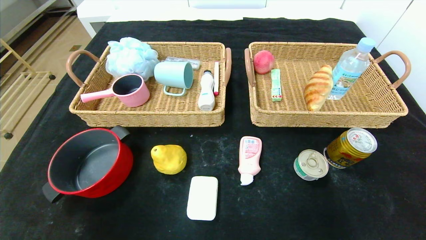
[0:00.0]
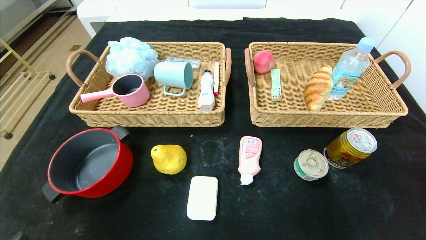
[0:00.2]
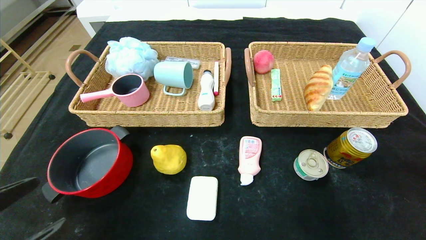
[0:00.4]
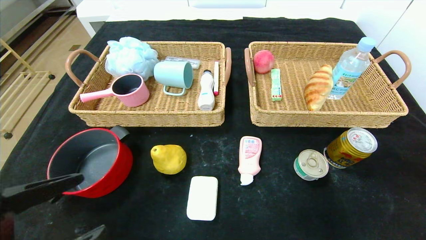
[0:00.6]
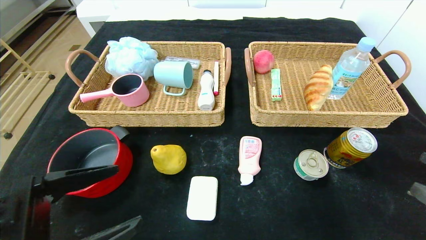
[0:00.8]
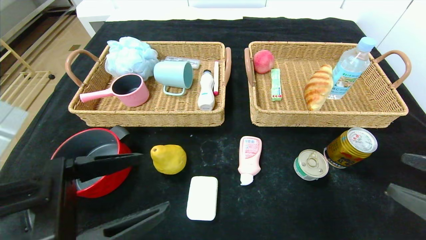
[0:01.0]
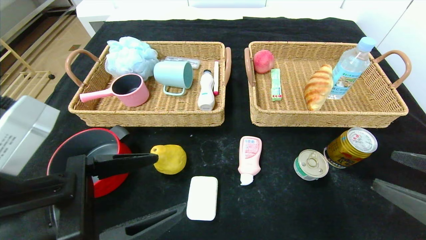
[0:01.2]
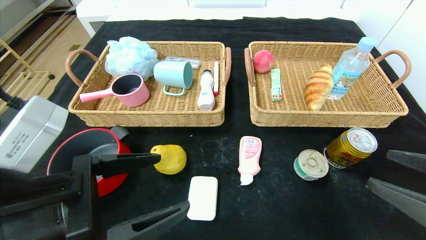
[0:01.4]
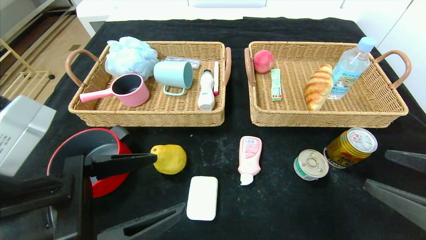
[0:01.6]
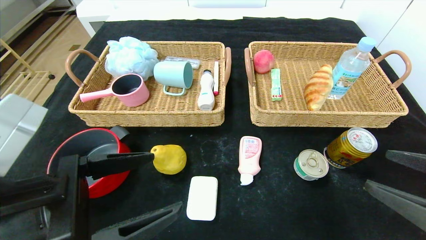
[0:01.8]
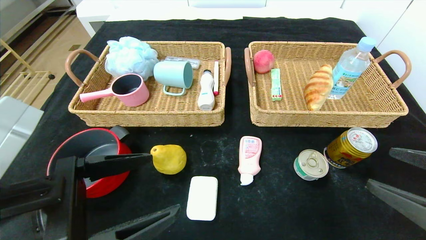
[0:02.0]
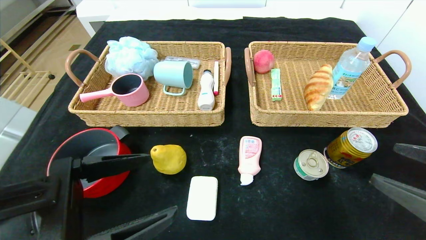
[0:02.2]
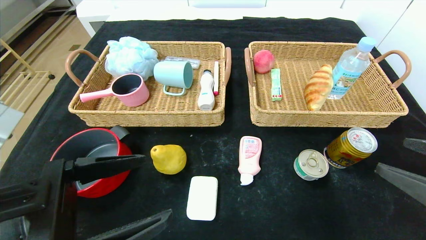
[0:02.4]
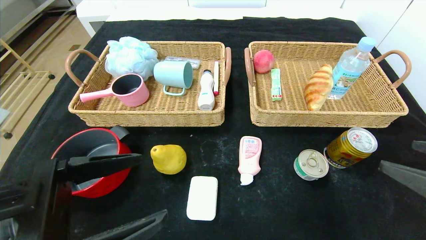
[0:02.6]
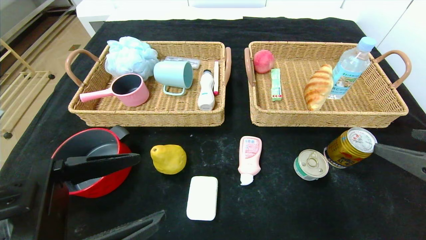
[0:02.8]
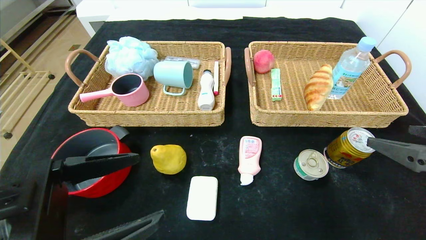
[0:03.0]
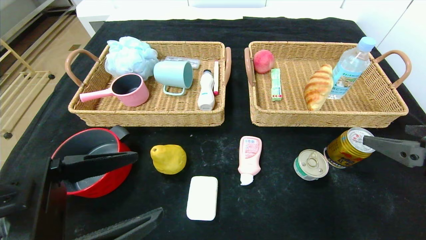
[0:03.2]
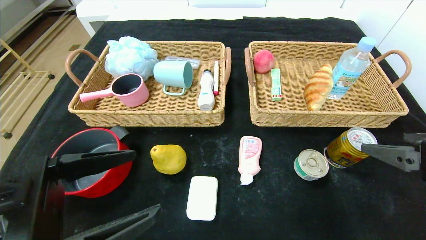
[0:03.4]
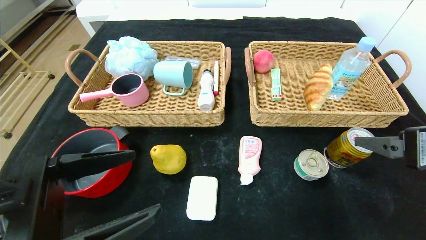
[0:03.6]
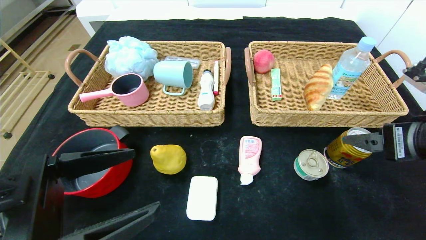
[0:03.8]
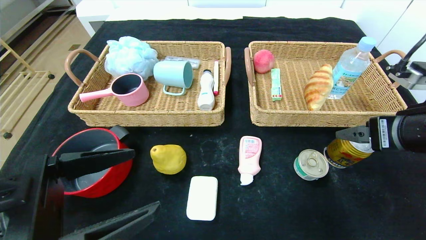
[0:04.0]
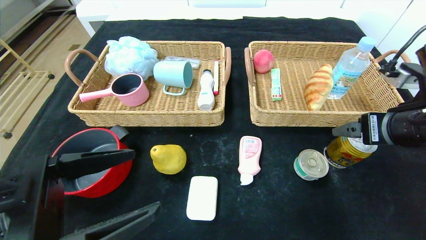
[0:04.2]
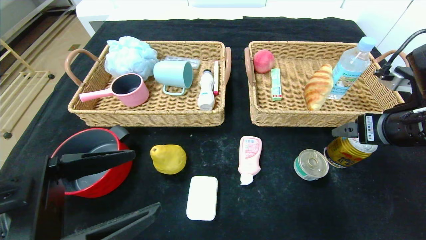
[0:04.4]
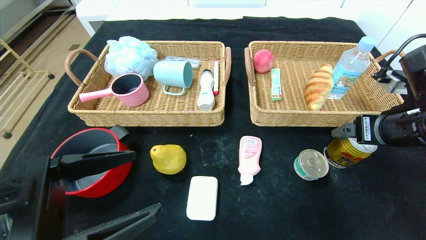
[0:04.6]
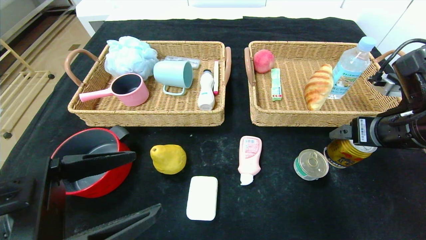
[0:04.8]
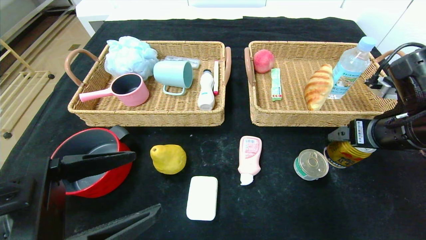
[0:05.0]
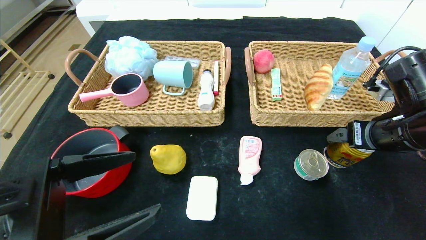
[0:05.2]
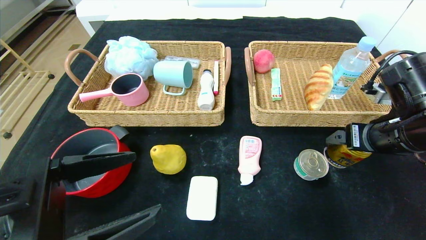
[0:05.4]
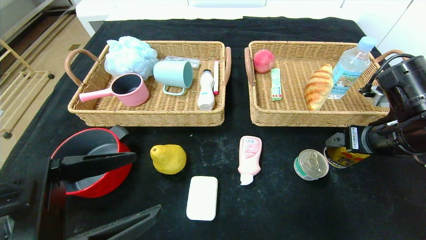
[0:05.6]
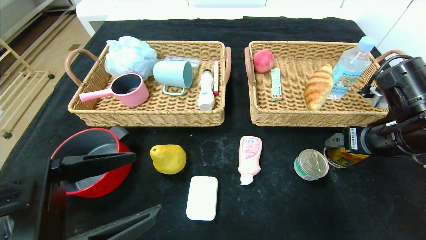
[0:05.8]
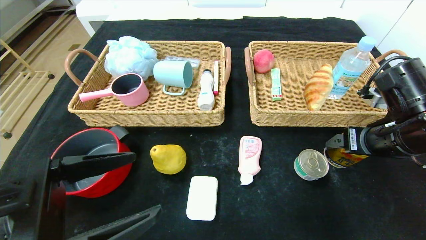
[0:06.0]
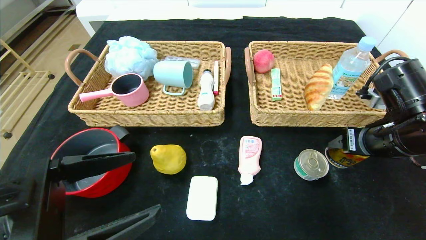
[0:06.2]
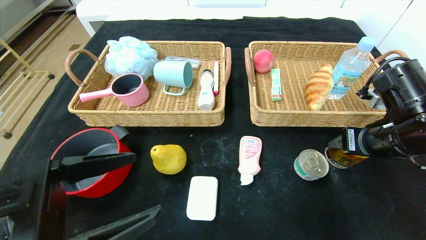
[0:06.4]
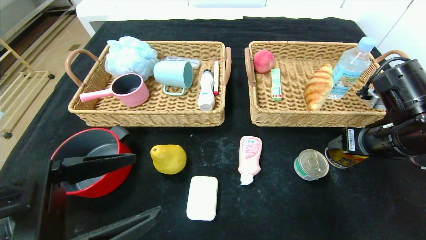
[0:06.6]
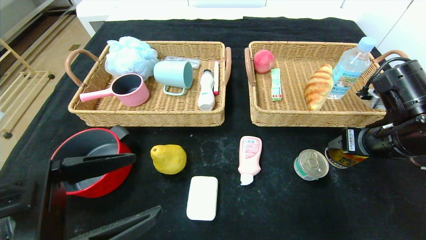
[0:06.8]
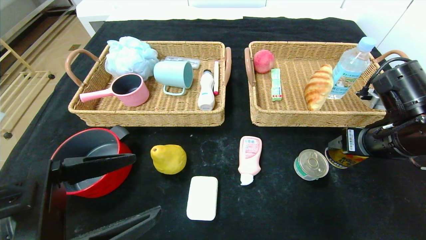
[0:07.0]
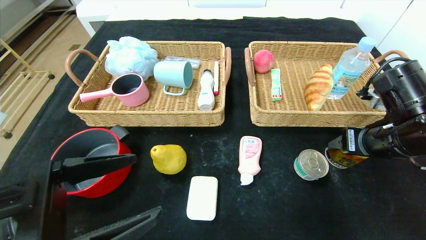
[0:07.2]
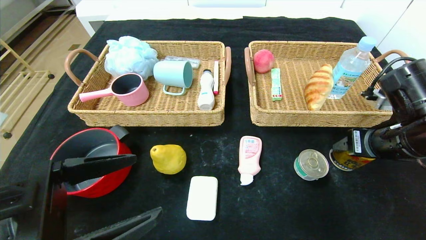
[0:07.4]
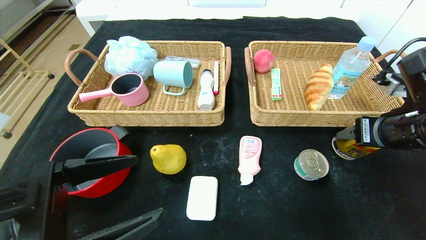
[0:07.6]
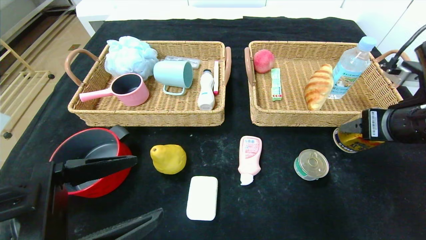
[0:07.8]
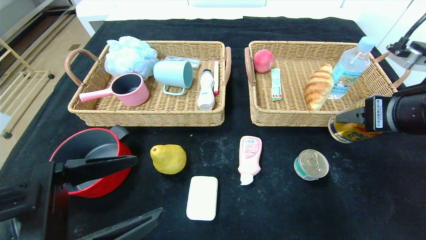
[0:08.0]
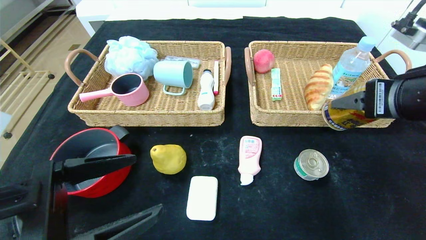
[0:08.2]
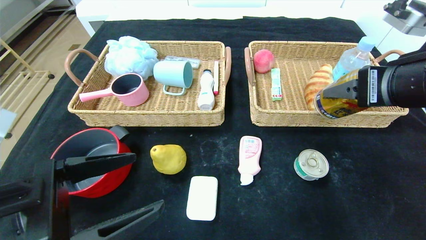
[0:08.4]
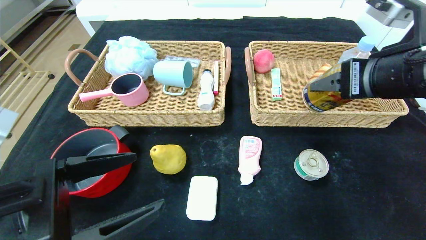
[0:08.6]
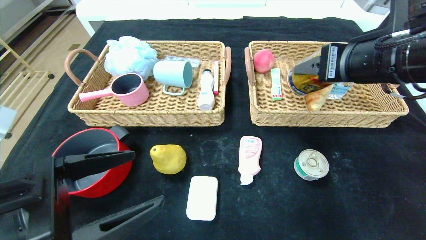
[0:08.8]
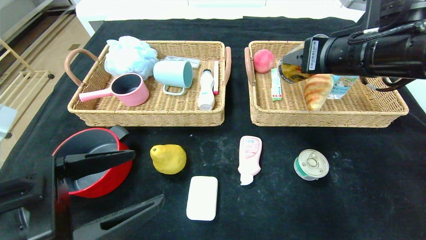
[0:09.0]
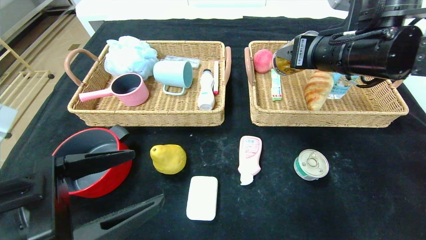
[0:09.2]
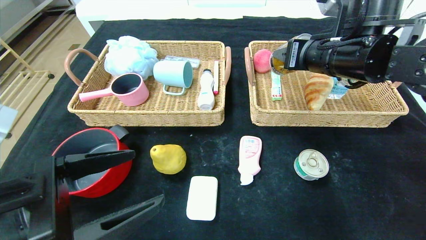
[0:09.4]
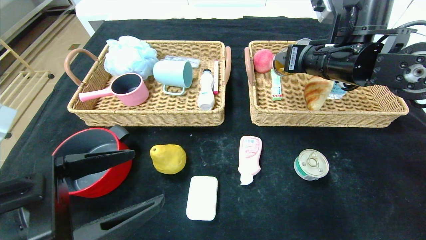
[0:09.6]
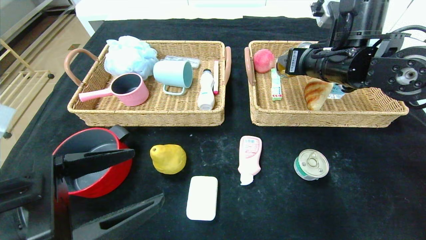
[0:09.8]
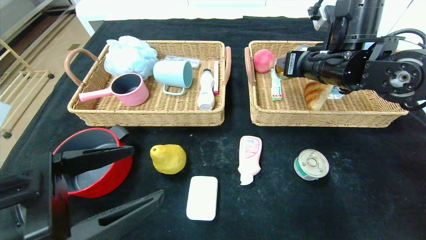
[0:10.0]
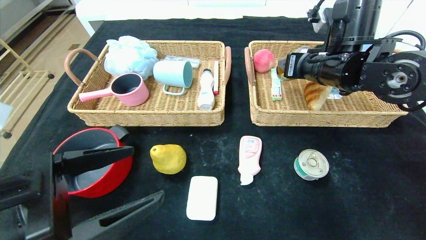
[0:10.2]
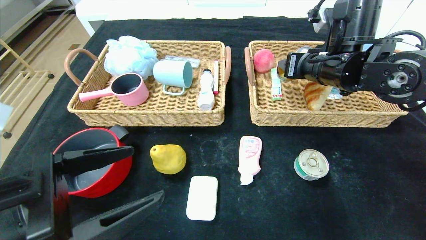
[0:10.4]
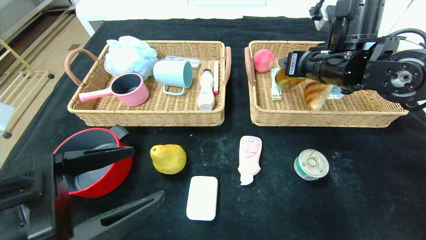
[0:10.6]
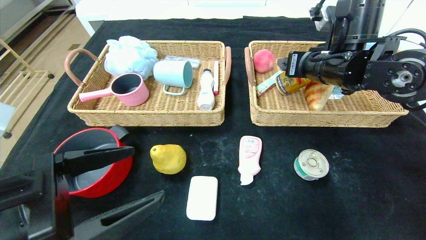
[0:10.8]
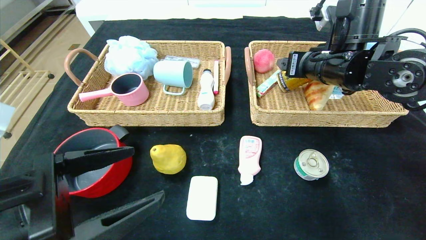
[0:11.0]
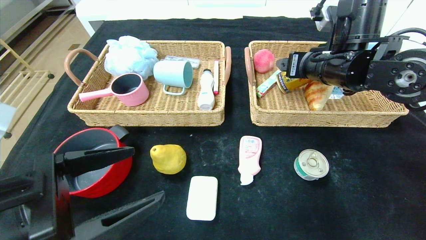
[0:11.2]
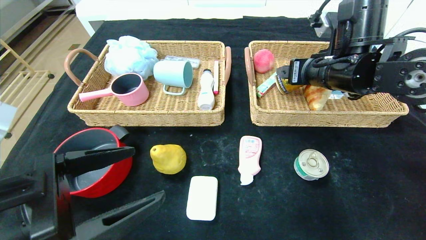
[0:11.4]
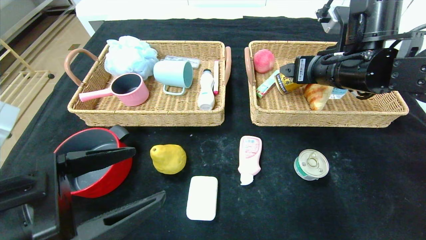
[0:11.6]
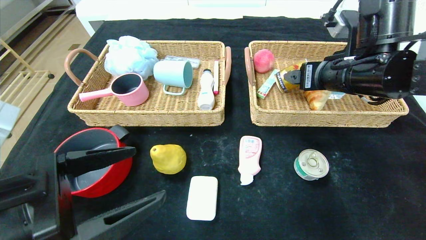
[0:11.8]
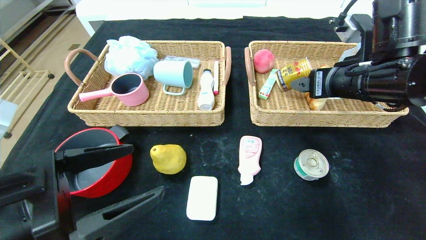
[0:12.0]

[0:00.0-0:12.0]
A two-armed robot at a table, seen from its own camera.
Step, 0:00.0 to 0:12.0: Grasp the red bull and put it in the right basket.
0:00.0 to 0:01.6: The right gripper goes some 15 cm forward, upward and to the left. The left gripper shifts some 20 cm forward, to the right and upward.
0:01.6 to 0:03.0: The right gripper moves roughly 5 cm.
0:03.0 to 0:04.4: The right gripper is displaced forward by roughly 10 cm.
0:04.4 to 0:07.6: The grippers move only a little.
0:07.6 to 0:09.0: The right gripper heads to the left and upward, covering roughly 10 cm.
0:09.0 to 0:10.4: The right gripper goes approximately 10 cm forward.
0:10.4 to 0:12.0: The right gripper is displaced backward by some 5 cm, and opens up.

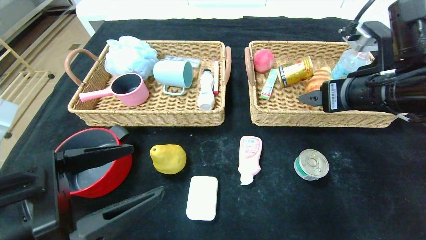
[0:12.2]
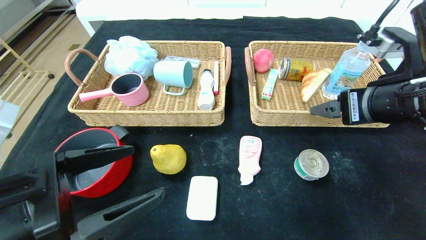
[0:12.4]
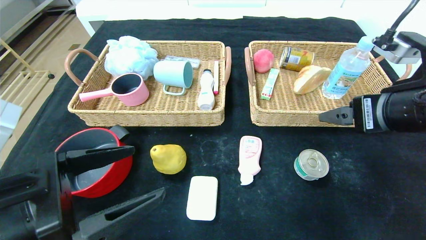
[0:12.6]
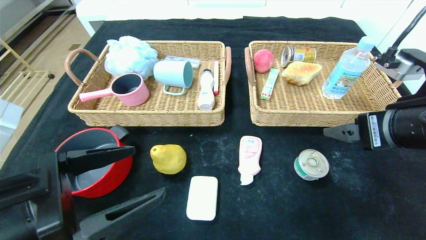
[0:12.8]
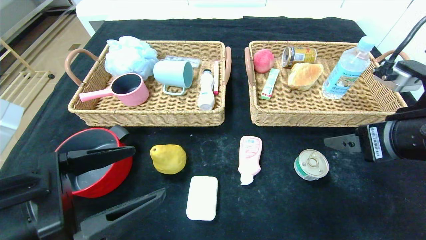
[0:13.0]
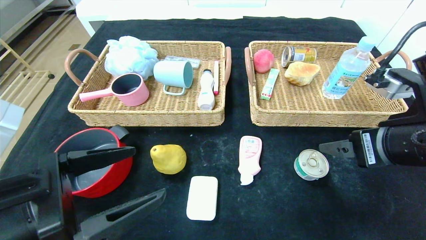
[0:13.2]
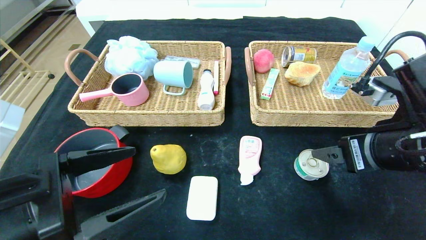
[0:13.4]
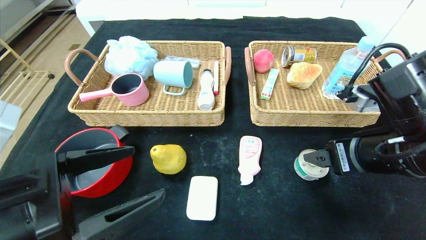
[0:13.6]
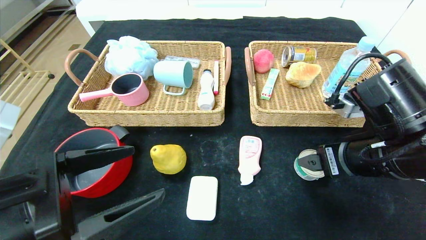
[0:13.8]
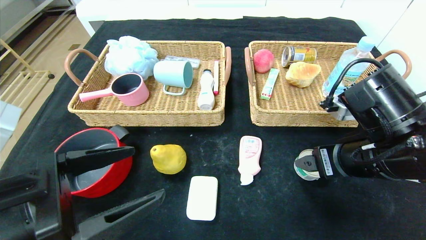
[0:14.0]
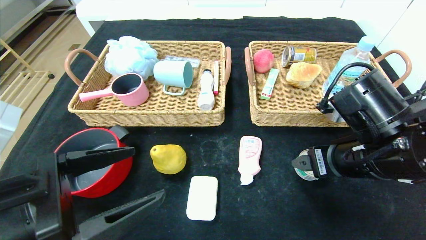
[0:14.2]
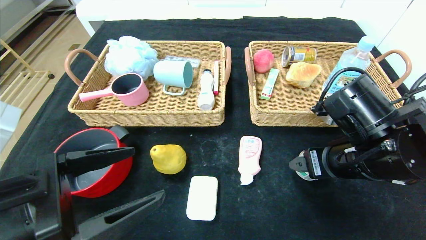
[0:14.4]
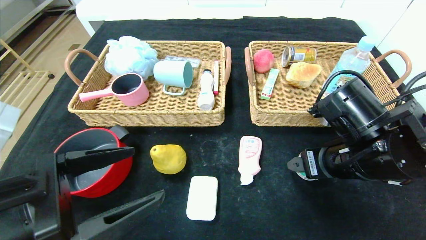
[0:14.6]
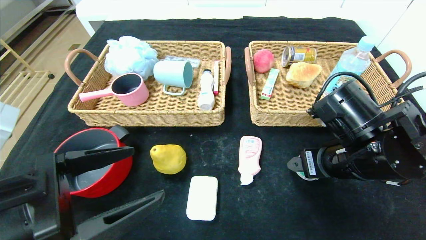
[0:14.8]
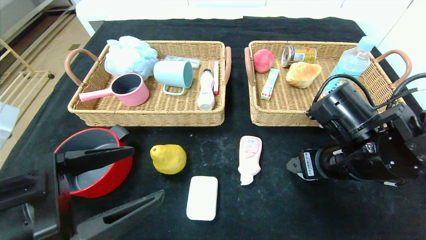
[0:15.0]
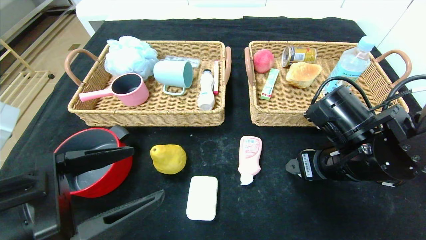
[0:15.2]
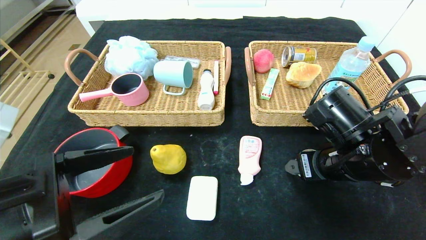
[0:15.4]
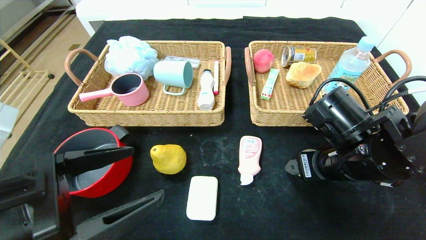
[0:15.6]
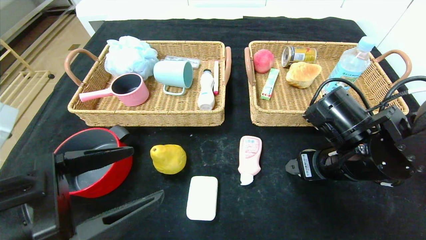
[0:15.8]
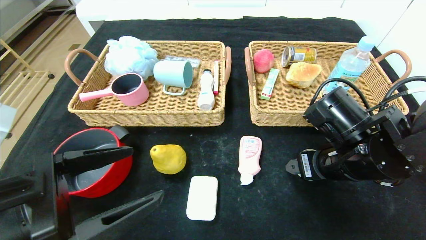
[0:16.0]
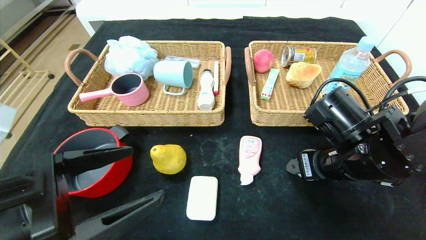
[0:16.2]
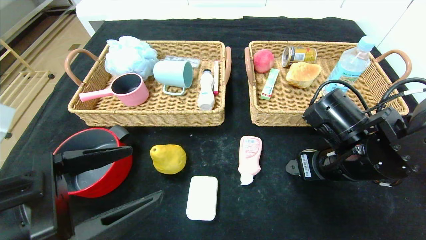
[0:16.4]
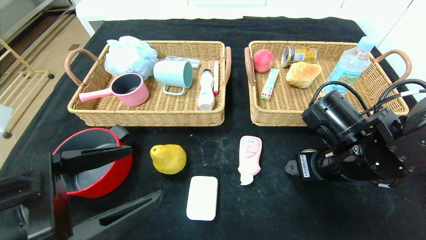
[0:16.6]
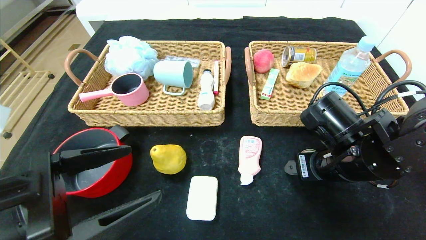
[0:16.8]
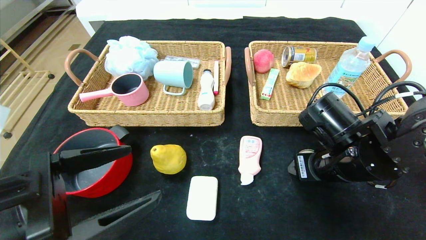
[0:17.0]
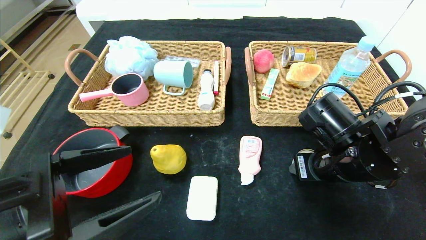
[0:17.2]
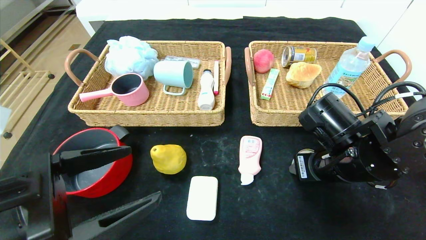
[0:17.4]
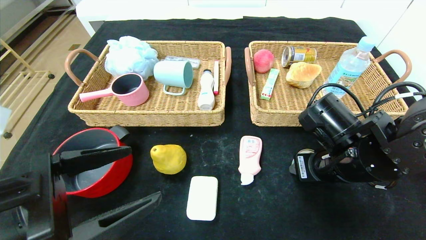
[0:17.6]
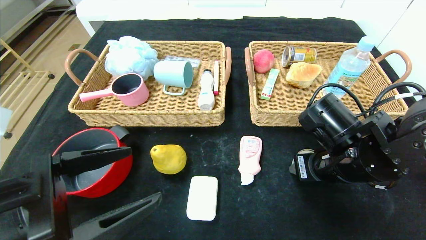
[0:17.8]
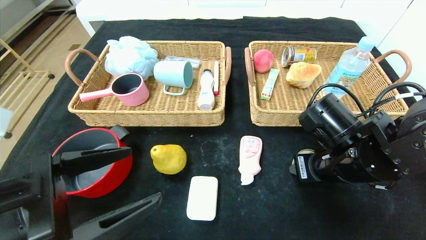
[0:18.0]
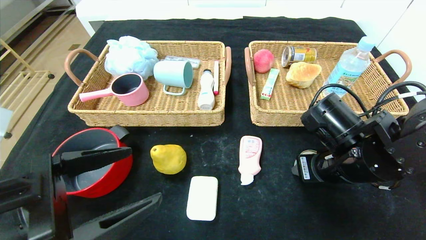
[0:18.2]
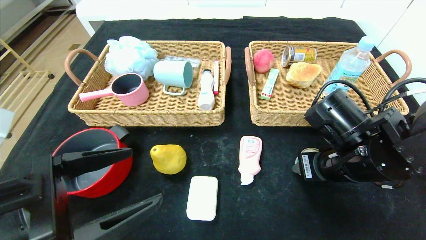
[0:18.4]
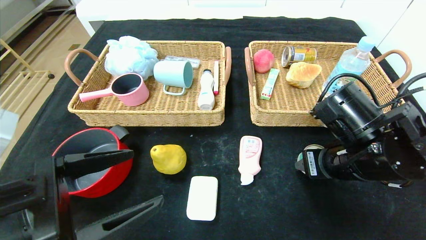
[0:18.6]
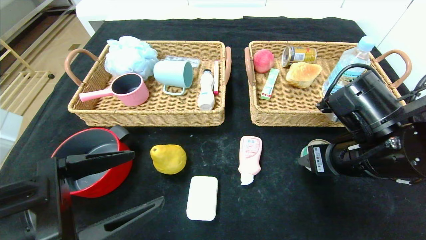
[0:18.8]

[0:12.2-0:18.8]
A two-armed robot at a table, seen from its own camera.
0:12.2 to 0:13.8: The right gripper moves downward, roughly 5 cm.
0:13.8 to 0:15.4: The grippers move only a little.
0:15.4 to 0:17.2: The right gripper closes.
0:17.2 to 0:18.8: The grippers stay close to where they were, moving slightly.
